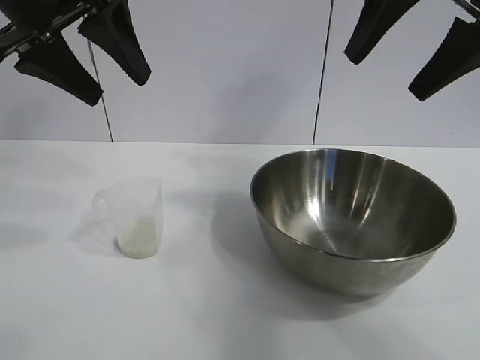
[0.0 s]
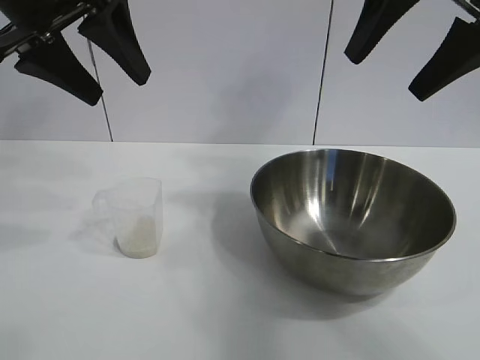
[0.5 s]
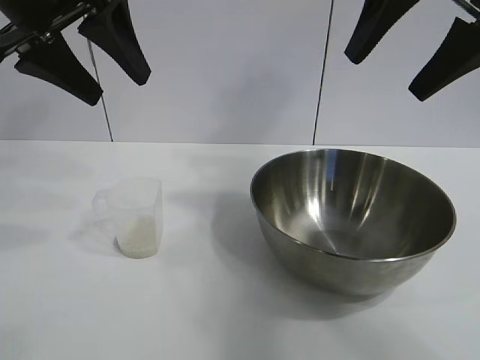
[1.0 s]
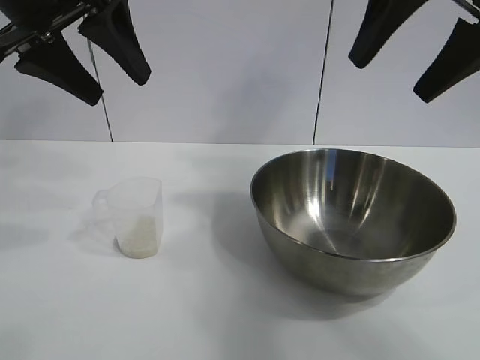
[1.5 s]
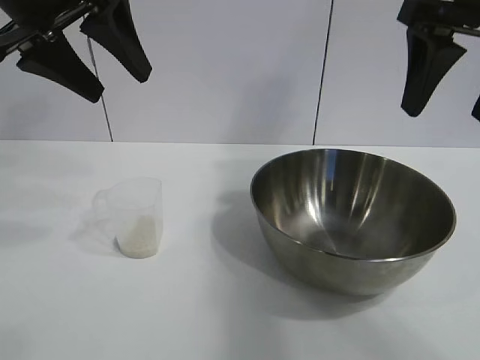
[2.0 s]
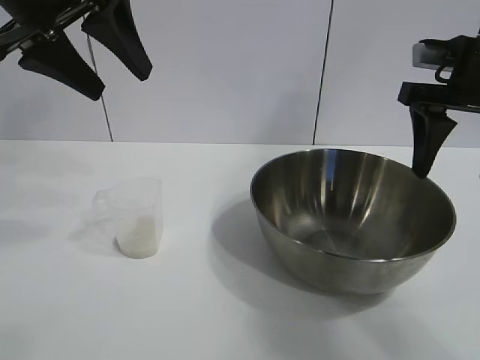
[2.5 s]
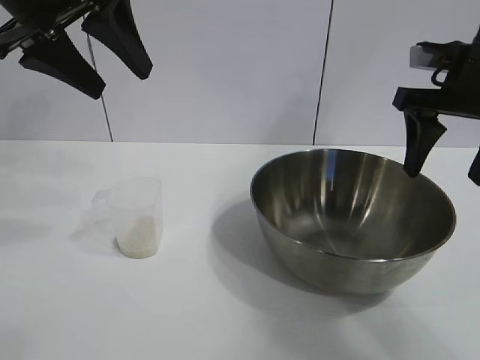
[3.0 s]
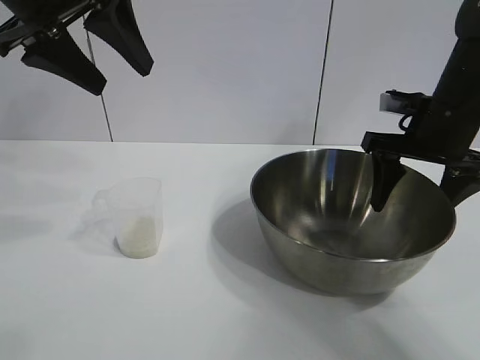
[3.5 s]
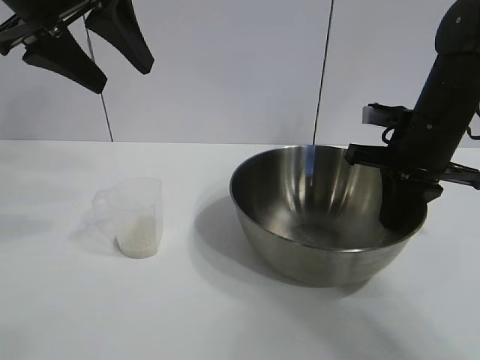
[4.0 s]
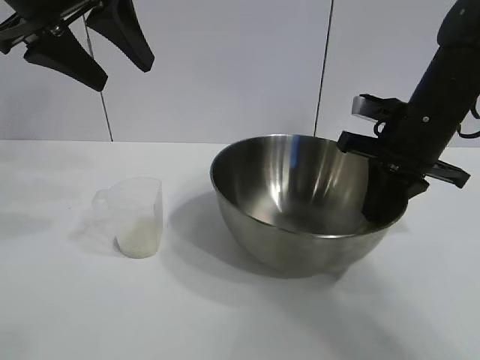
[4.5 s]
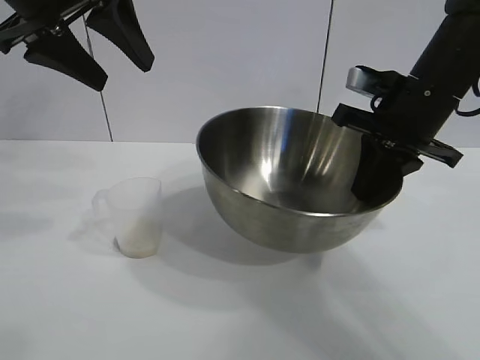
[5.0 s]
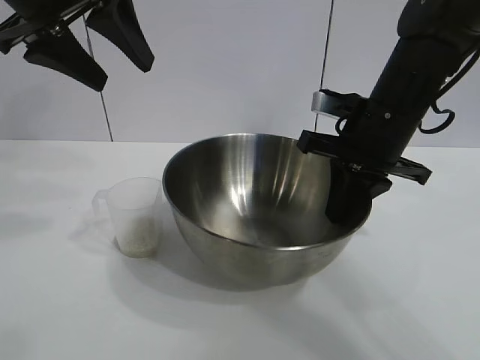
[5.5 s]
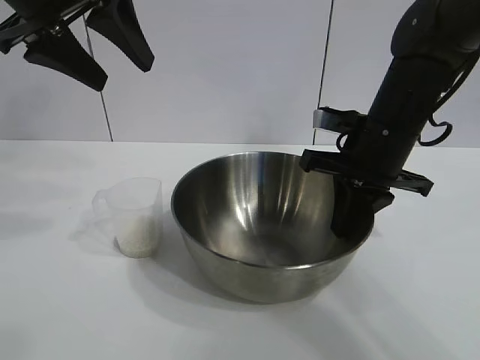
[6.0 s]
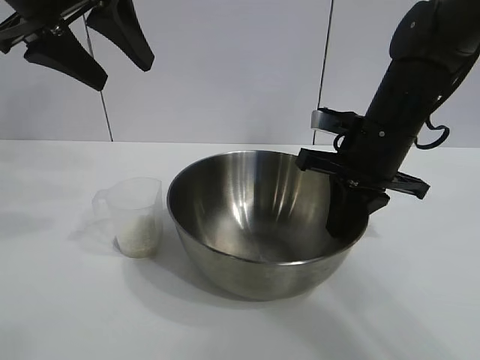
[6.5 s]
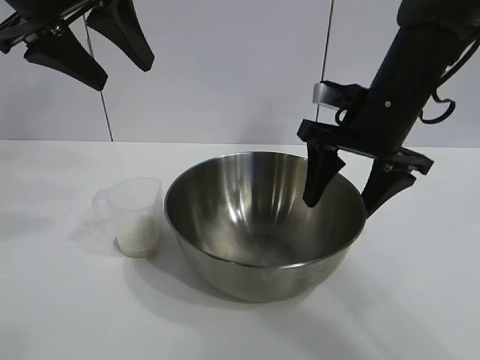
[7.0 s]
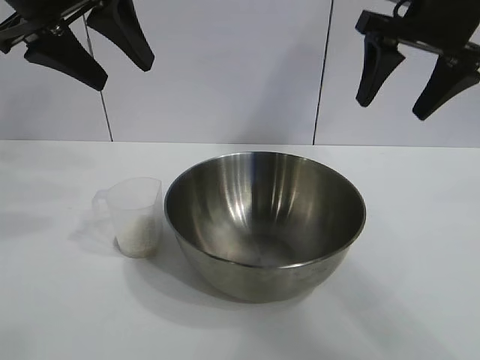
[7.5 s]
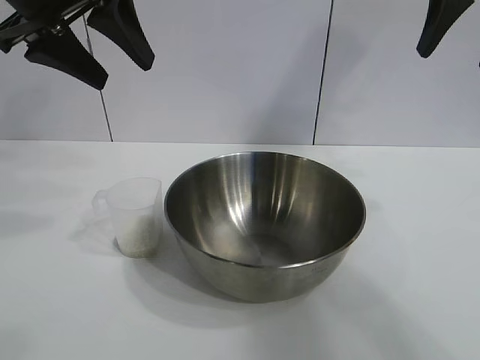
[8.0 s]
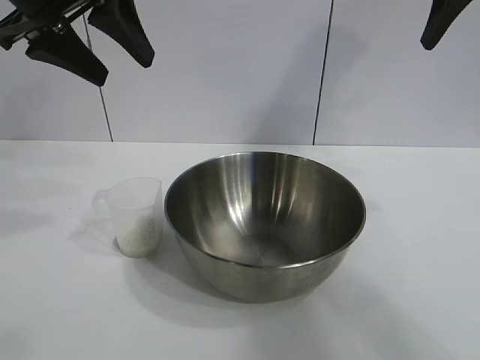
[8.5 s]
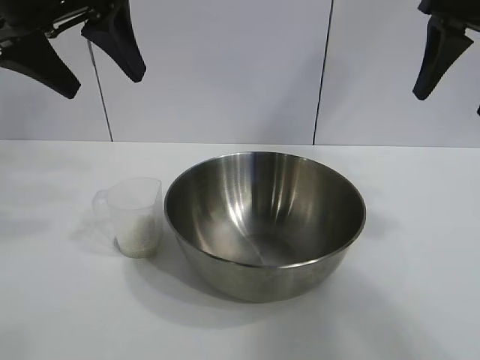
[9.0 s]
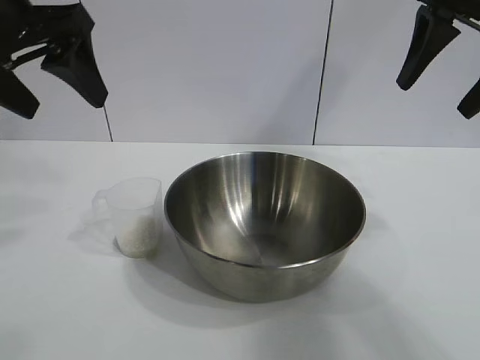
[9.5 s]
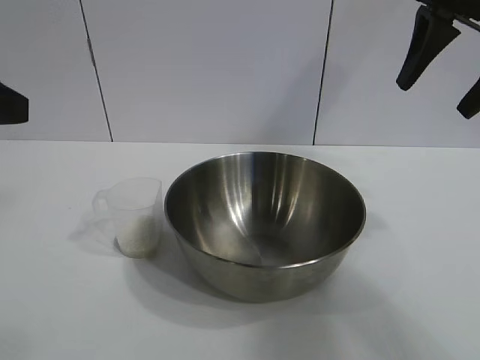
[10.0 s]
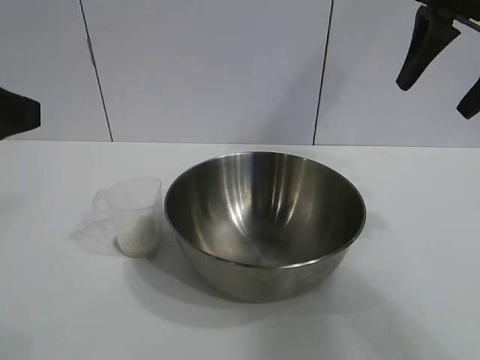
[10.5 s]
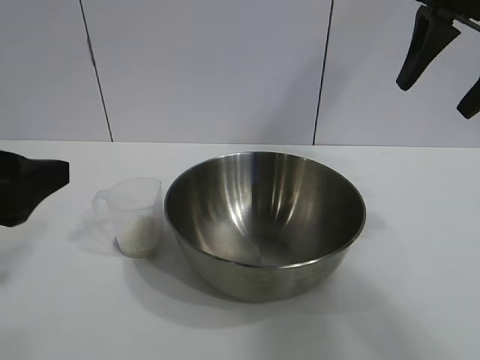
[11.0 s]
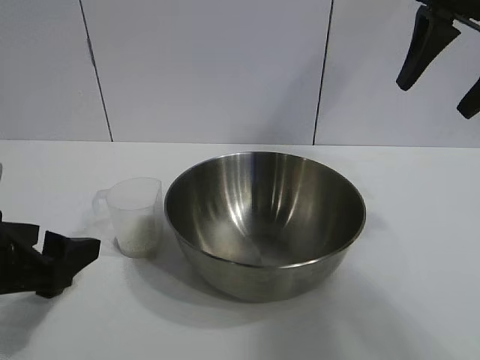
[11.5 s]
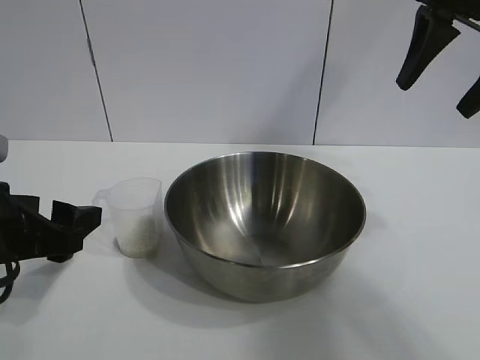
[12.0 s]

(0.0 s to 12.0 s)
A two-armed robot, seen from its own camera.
Task of the whole recording: the right gripper grasp the rice container and place it in the center of the table, the left gripper grasp the rice scoop and pour the rice into the rice container.
Step, 1.5 s - 6.5 s: Move the bowl in the center of view with right gripper.

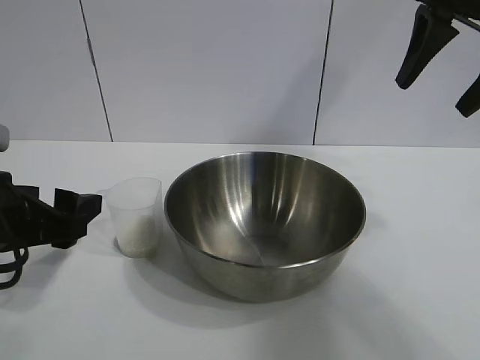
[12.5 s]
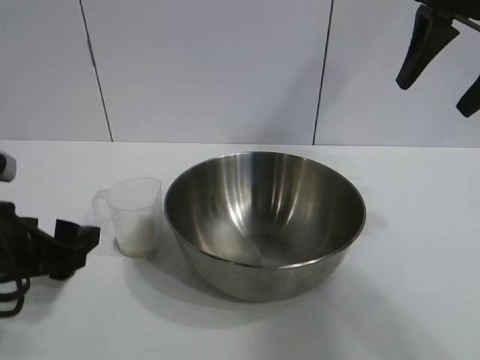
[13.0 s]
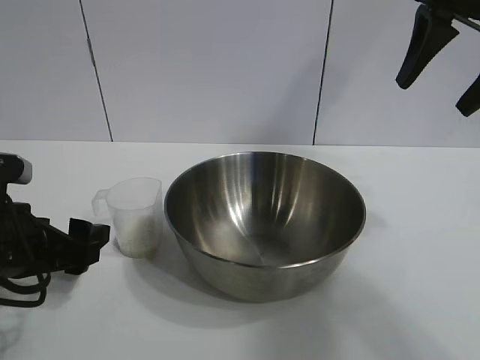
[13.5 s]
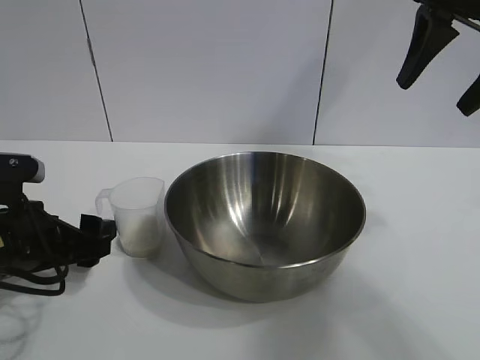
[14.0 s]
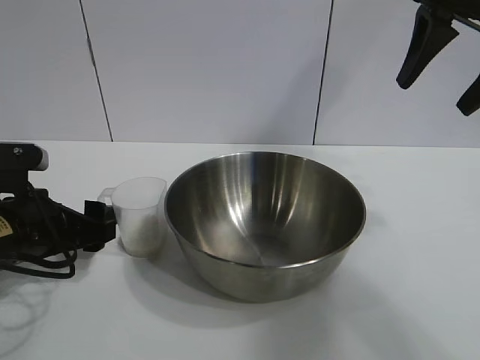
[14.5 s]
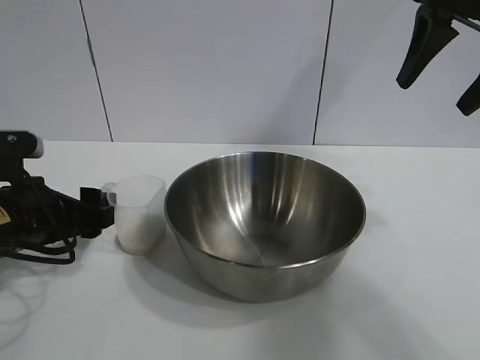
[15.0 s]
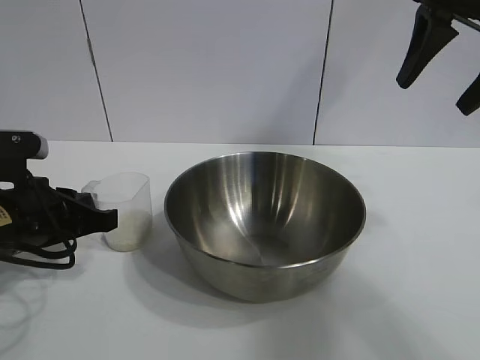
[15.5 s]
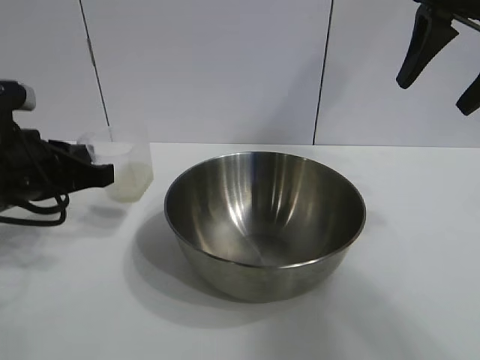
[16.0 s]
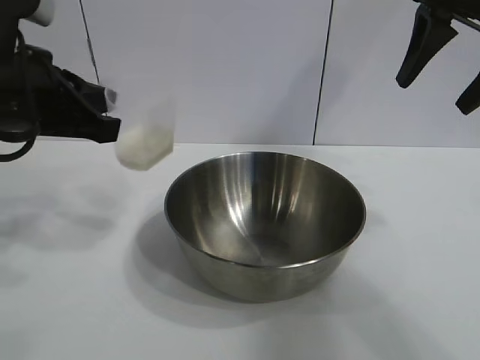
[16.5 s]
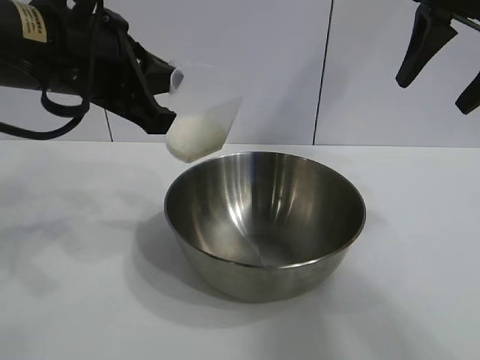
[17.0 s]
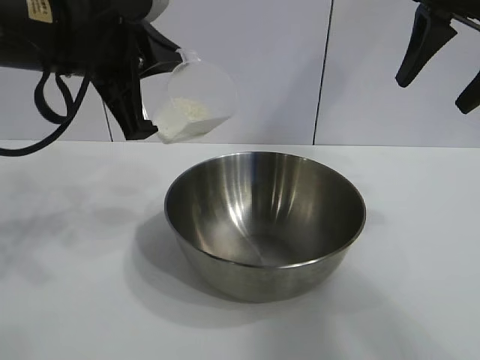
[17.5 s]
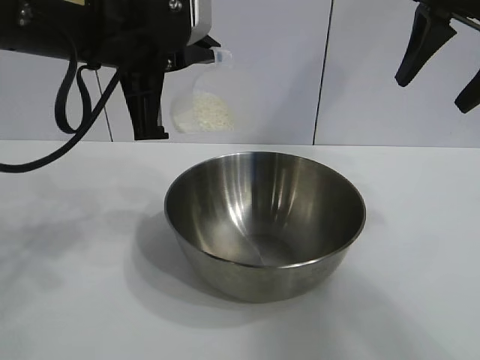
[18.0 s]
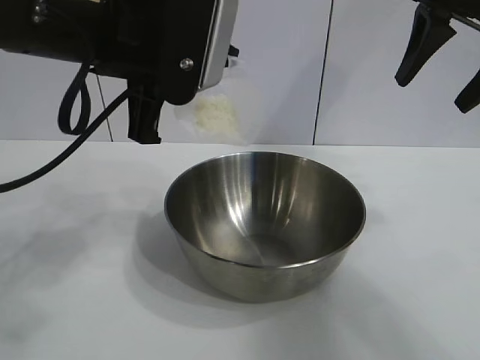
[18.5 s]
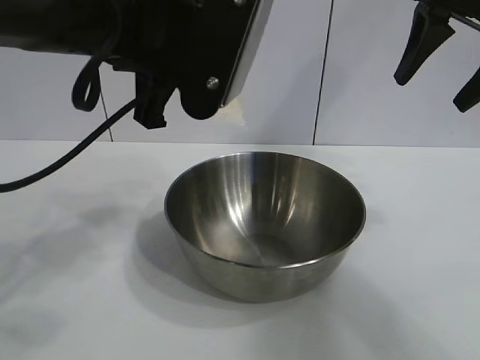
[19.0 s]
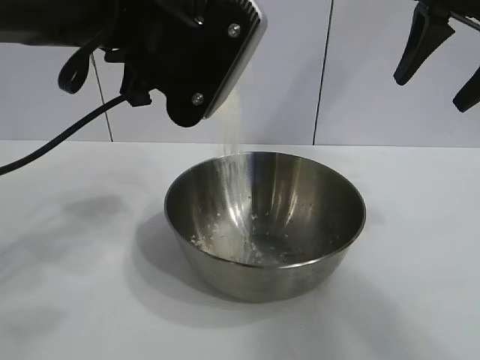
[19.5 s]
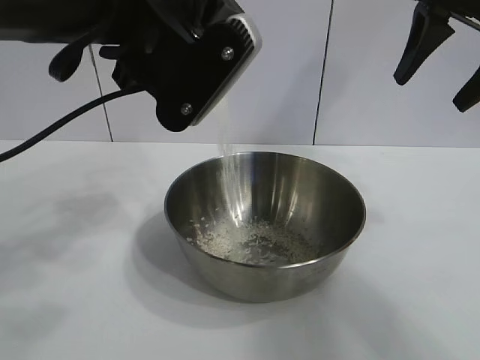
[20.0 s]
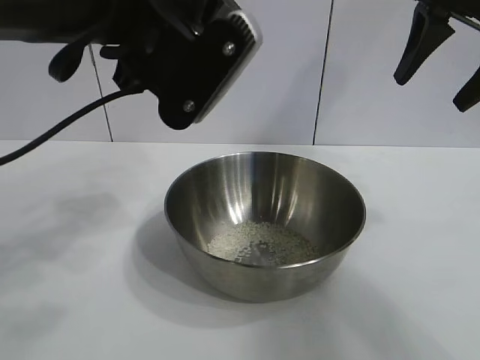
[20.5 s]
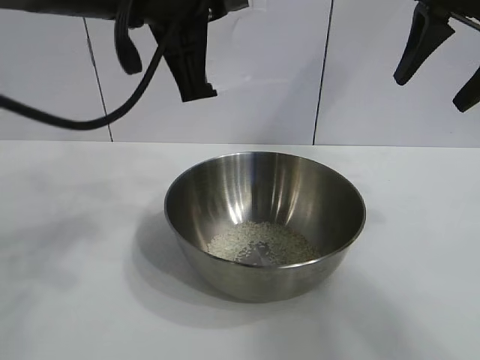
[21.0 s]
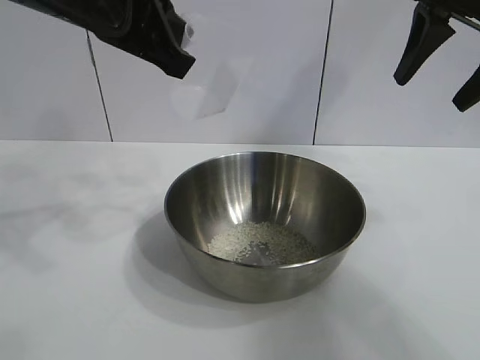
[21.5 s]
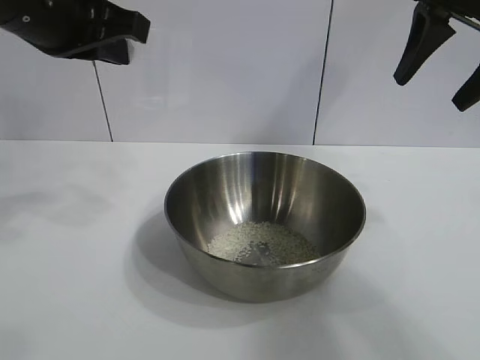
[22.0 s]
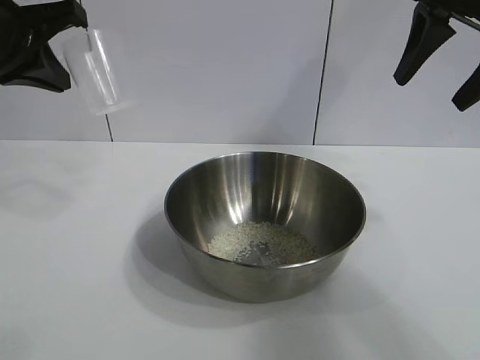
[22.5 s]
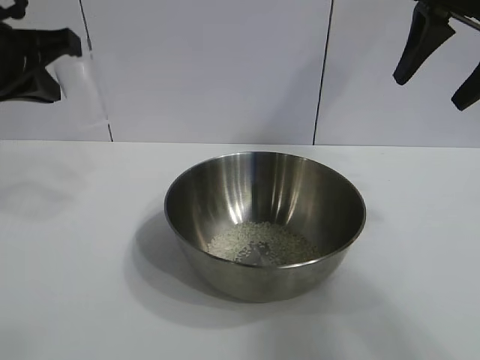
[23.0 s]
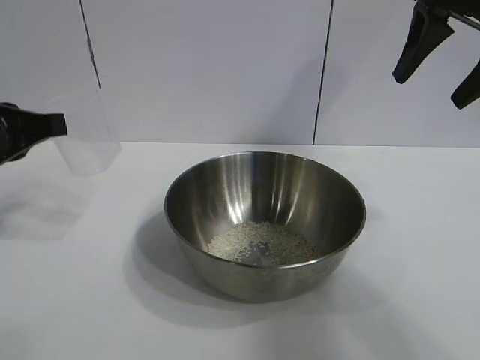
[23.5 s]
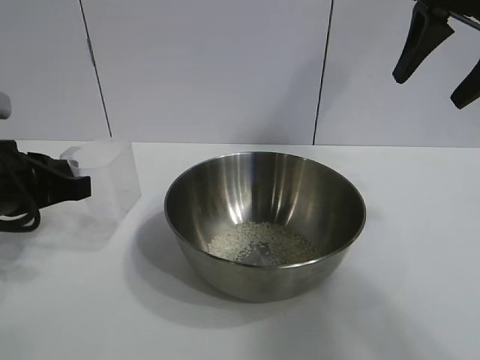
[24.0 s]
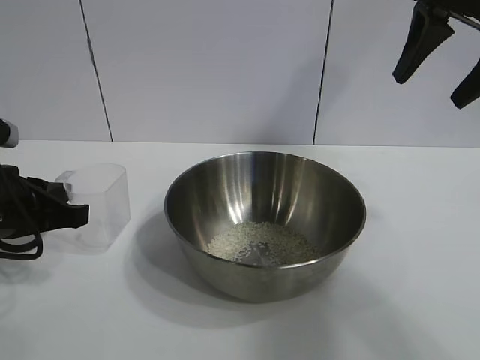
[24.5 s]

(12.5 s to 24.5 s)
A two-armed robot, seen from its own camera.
Task of the whole recording: the right gripper grasp the rice container and place it in the center of the table, the left gripper grasp the rice scoop and pour the rice into the rice container.
Step, 12.5 s - 15.5 s: Grasp the cup with rice in it with left gripper.
Step, 16.0 s - 20.0 s: Pour the rice from the cup into the bowl with the left gripper.
